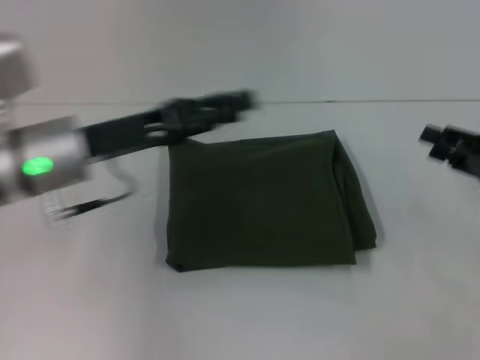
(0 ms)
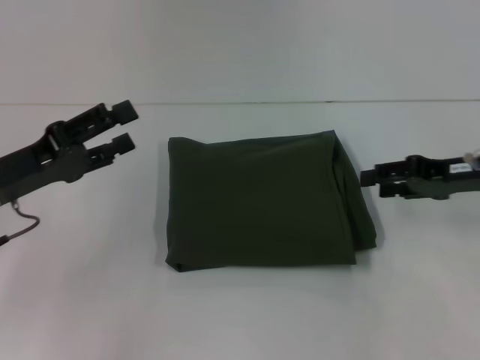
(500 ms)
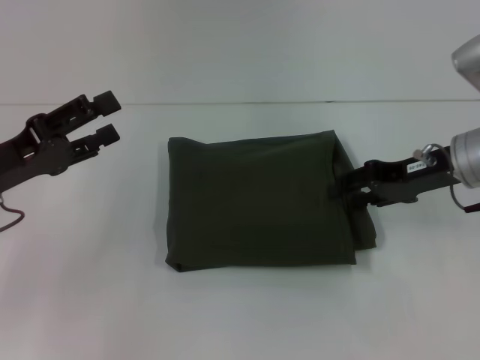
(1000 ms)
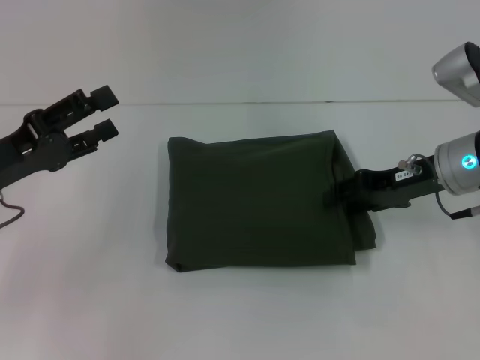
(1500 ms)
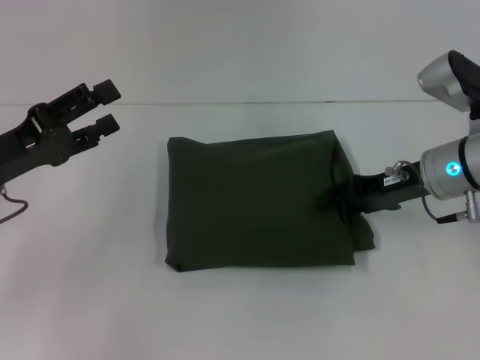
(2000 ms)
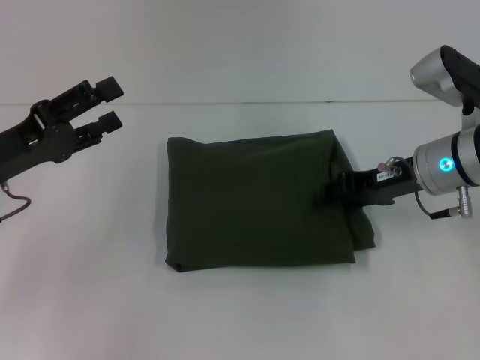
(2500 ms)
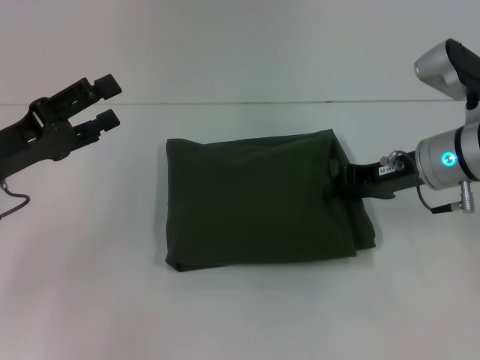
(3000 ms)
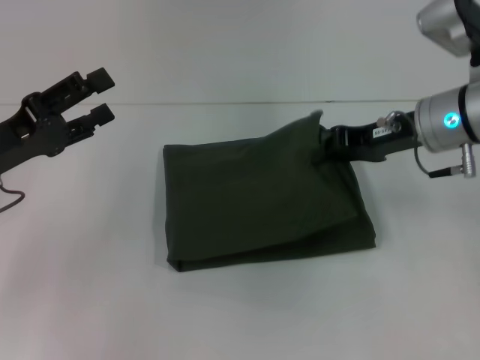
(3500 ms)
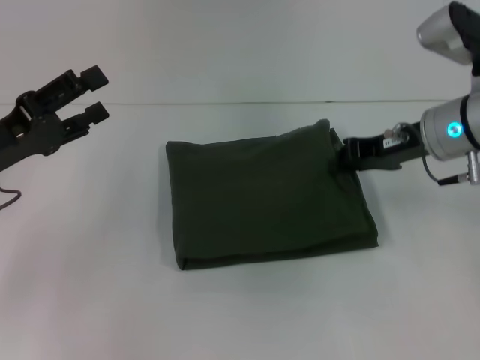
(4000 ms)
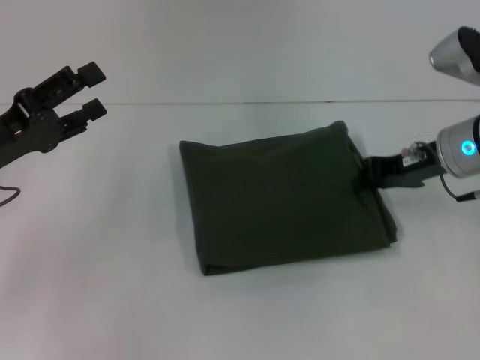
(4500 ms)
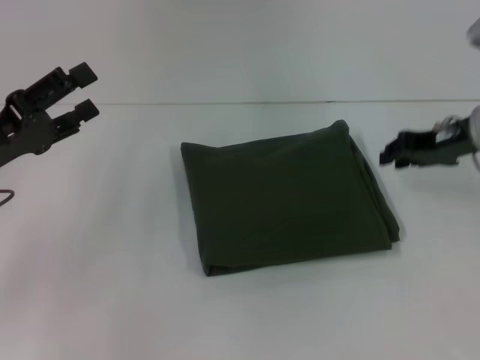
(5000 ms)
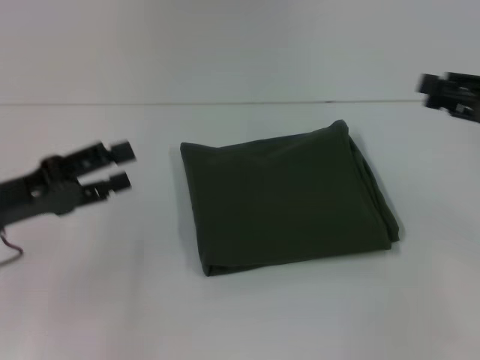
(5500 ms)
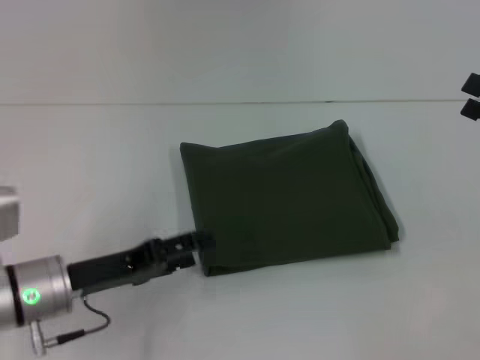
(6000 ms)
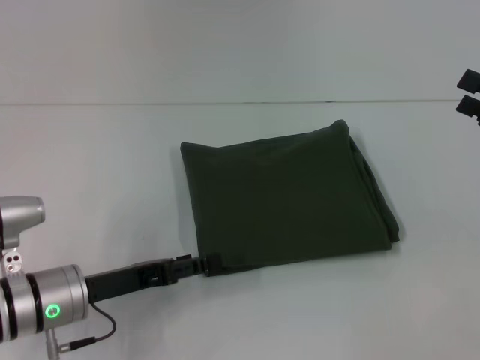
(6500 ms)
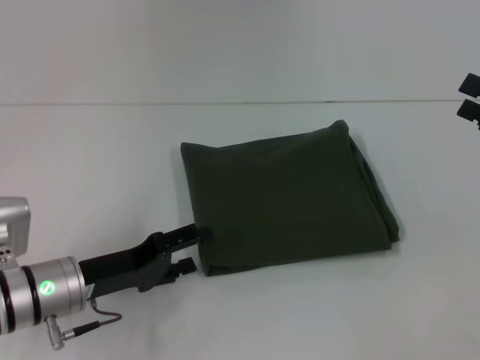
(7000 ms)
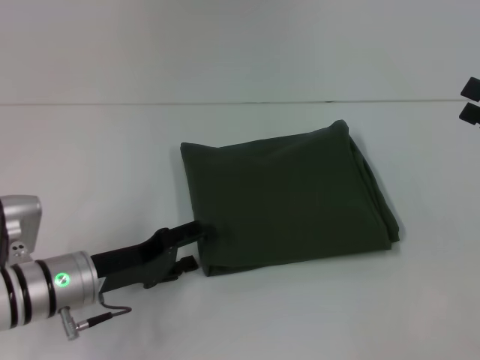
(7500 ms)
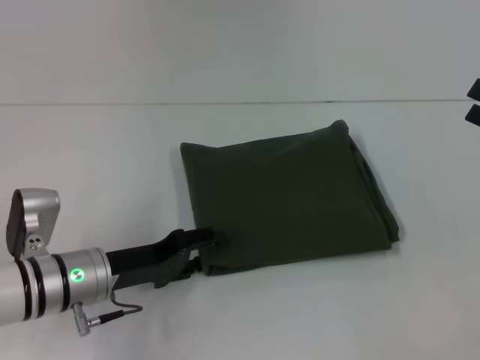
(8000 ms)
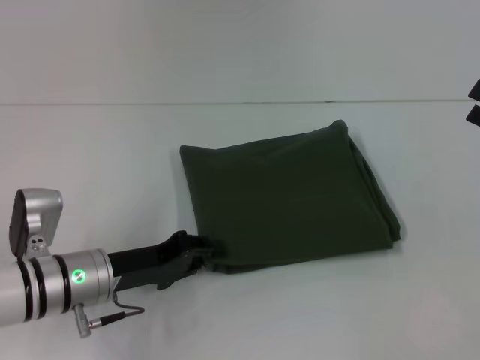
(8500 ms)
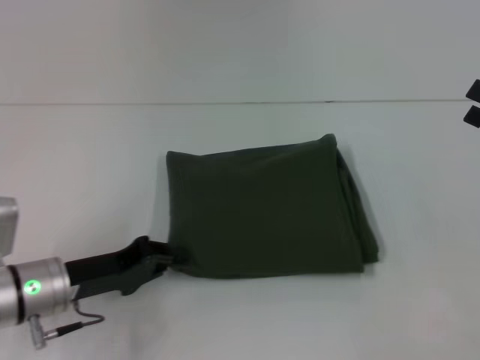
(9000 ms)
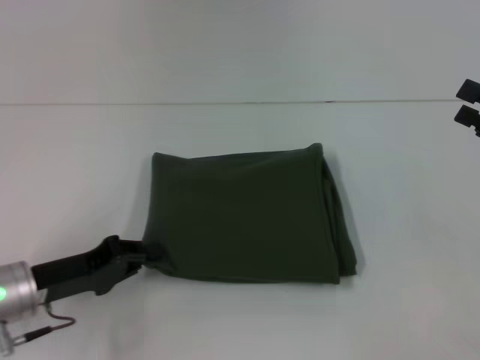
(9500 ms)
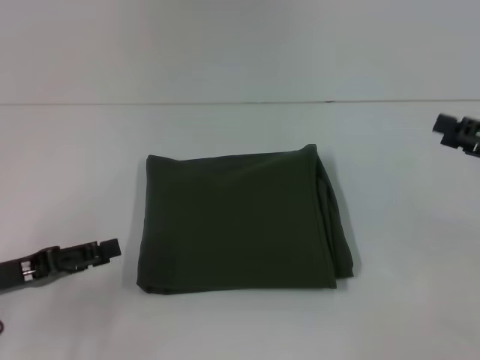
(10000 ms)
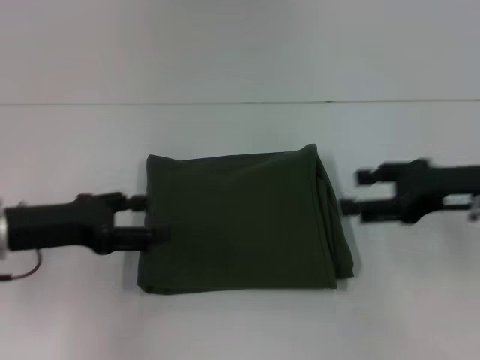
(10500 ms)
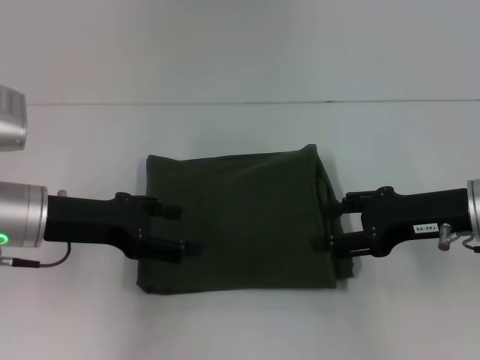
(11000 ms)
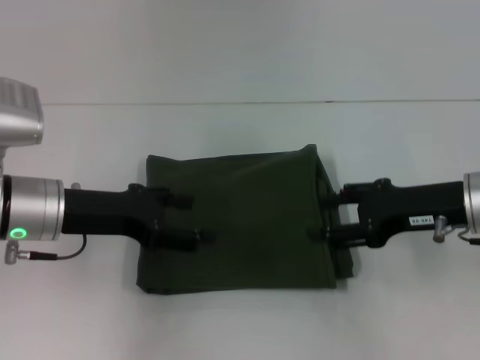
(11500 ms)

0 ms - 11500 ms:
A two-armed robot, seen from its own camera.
0 ms - 2000 ms: The left gripper is displaced to the left by about 10 cm, and opens its fingers; the right gripper goes about 15 cm to the left and forward.
2000 ms - 4000 ms: The right gripper closes.
4000 ms - 6000 ms: The right gripper is displaced to the right and backward by approximately 20 cm, and opens its fingers, while the left gripper is displaced downward and to the right by some 10 cm.
6000 ms - 7500 ms: The grippers stay close to where they were, moving slightly.
7500 ms - 9500 ms: The left gripper travels to the left by some 5 cm, and closes up.
9500 ms - 11500 ms: The left gripper travels upward and forward by some 10 cm, and opens. Meanwhile the right gripper travels to the left by about 10 cm.

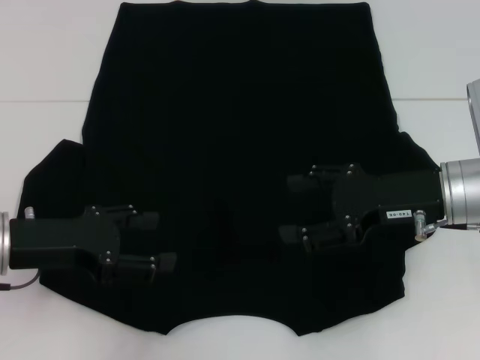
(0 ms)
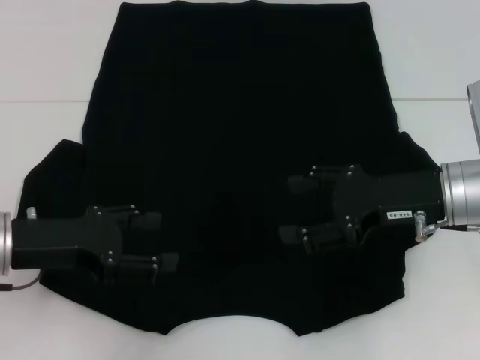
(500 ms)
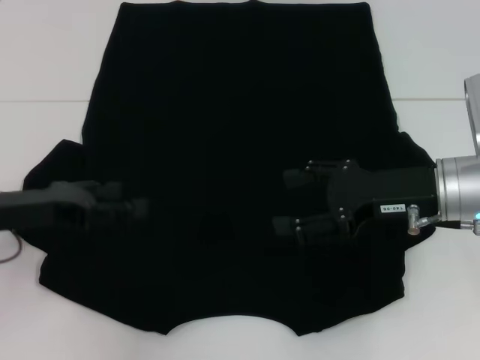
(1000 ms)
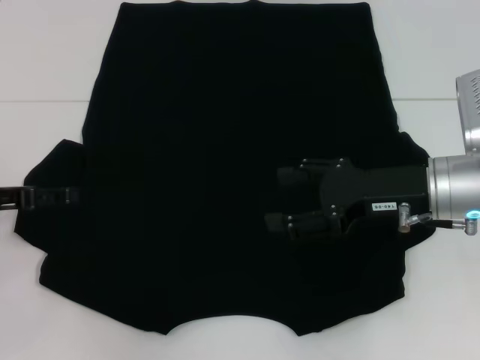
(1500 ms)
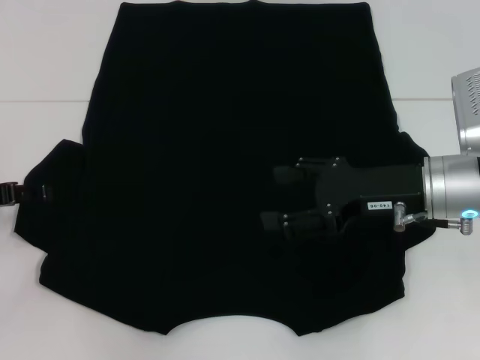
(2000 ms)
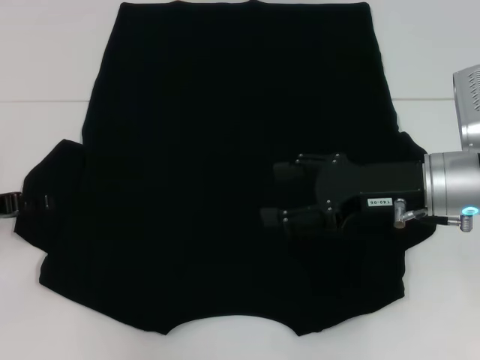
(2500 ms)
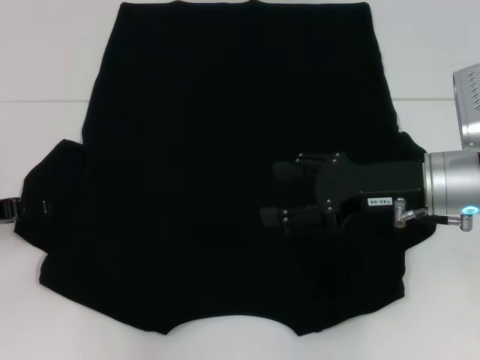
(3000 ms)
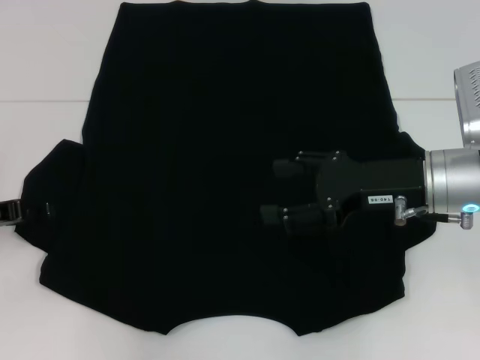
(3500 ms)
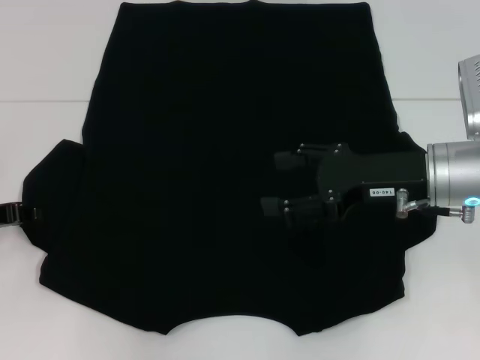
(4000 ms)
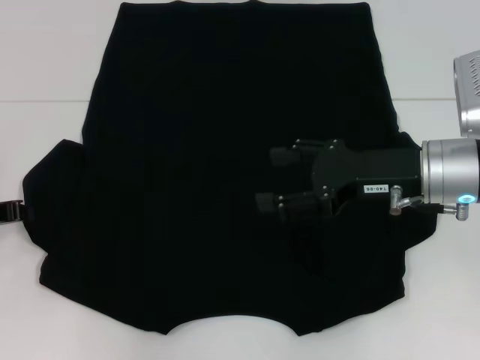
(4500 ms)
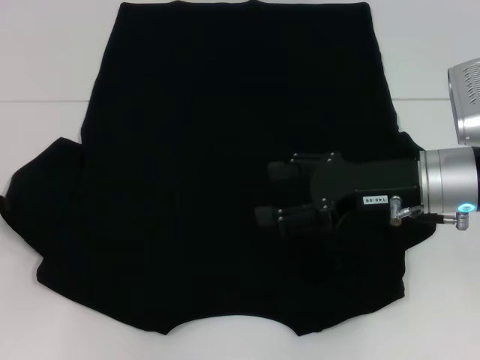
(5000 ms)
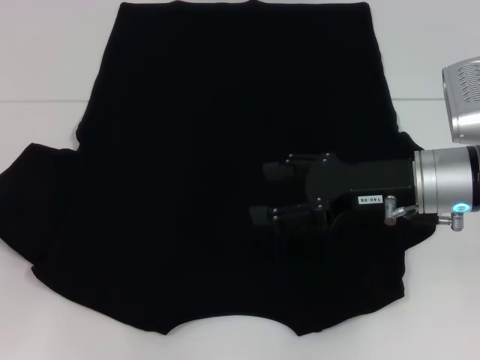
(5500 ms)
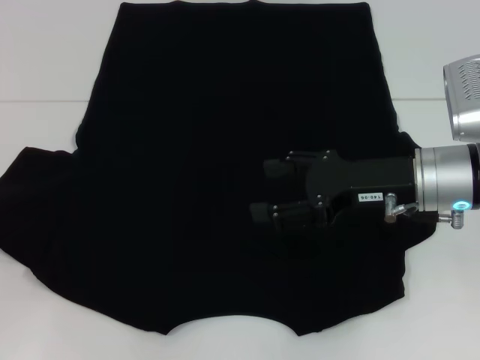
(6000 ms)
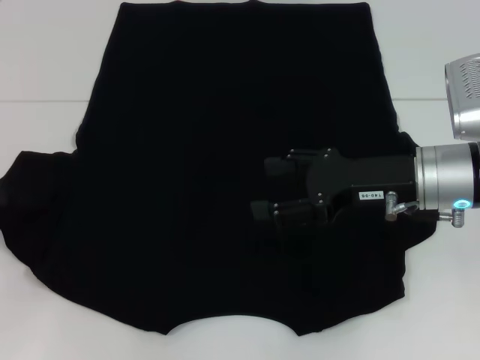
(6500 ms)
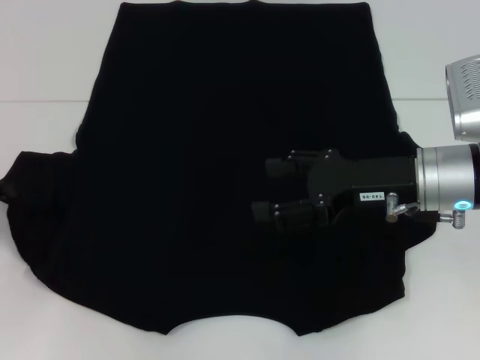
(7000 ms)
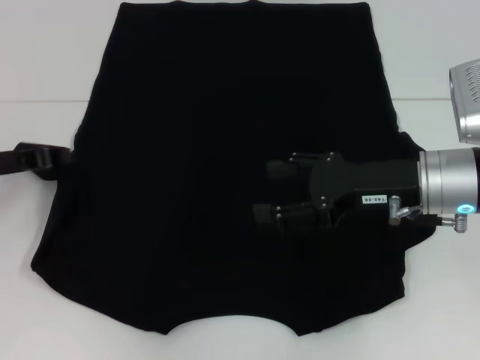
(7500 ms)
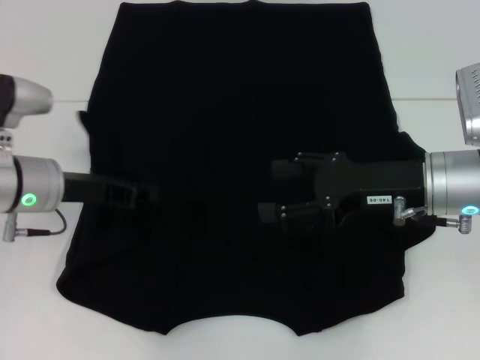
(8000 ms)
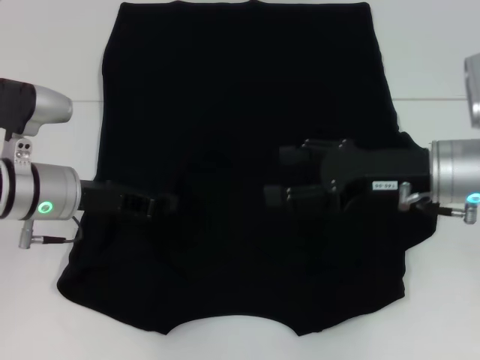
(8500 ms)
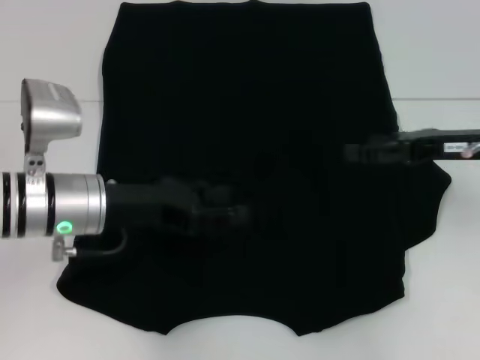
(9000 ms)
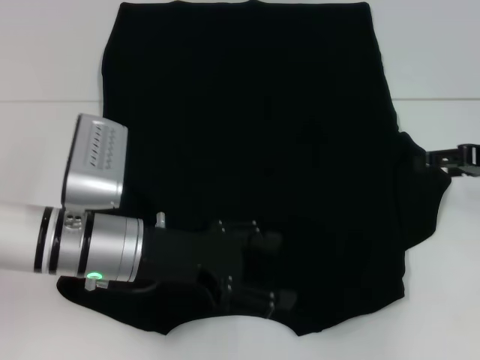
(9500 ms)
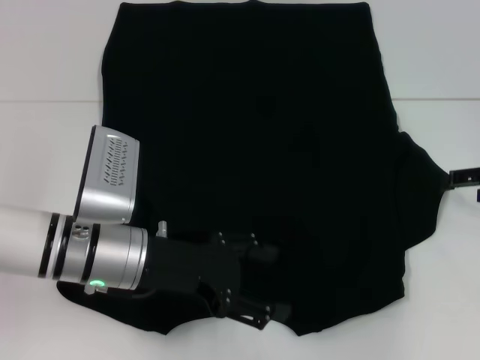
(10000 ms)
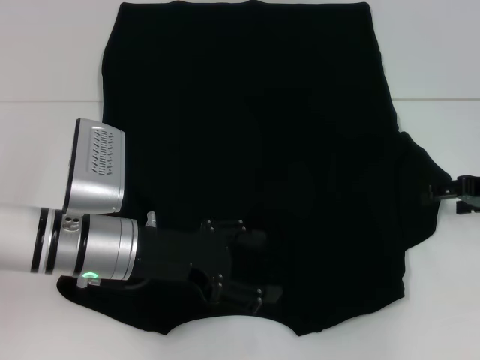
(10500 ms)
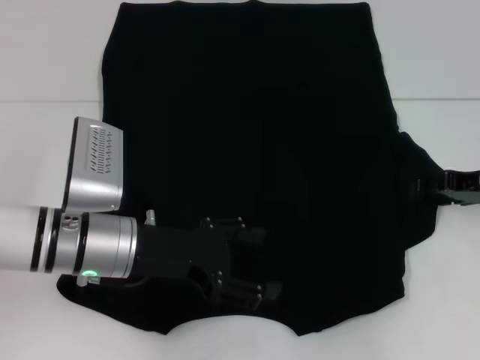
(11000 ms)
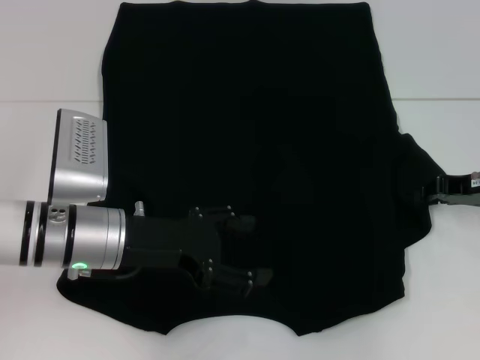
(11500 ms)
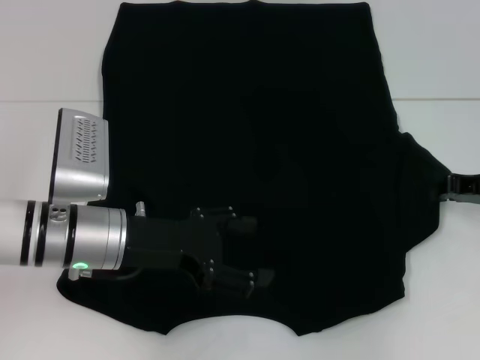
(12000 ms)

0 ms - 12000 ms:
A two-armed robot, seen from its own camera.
Step, 0 ms - 8500 ms: Fold the bottom left sleeve with your left hand.
0 ms - 2000 ms: The left gripper is displaced to the left by about 10 cm.
2000 ms - 4000 ms: There are only small adjustments of the grippers.
4000 ms - 6000 ms: The left gripper moves approximately 5 cm, and closes its fingers.
6000 ms - 8000 ms: The left gripper goes some 15 cm to the right and forward.
8000 ms - 10000 ms: The left gripper travels to the right and backward by approximately 10 cm, and opens. Meanwhile the right gripper shifts some 15 cm to the right.
10000 ms - 12000 ms: The right gripper closes.

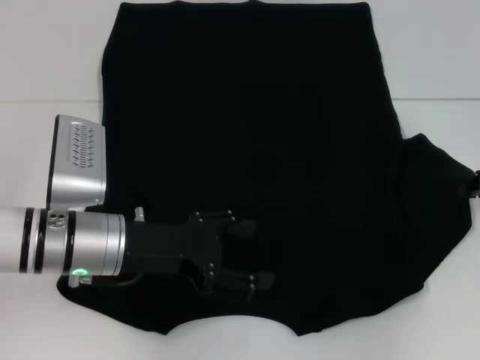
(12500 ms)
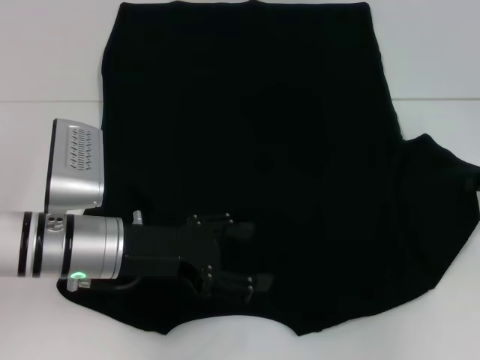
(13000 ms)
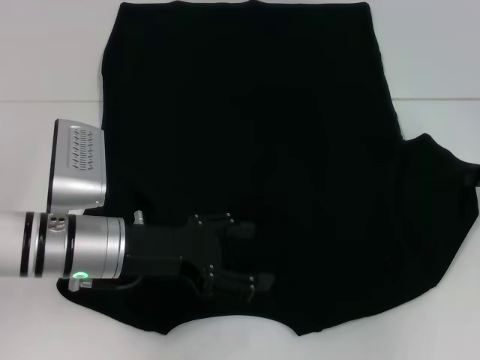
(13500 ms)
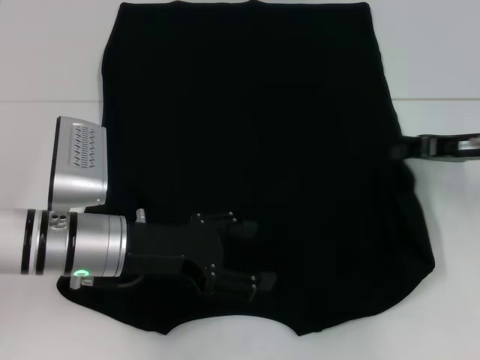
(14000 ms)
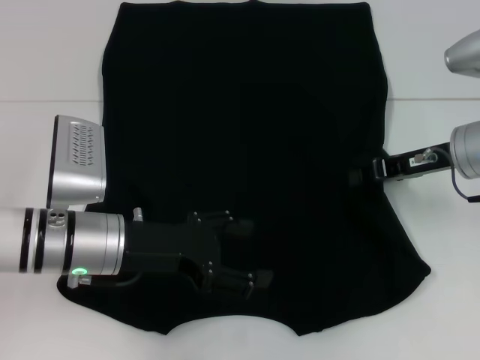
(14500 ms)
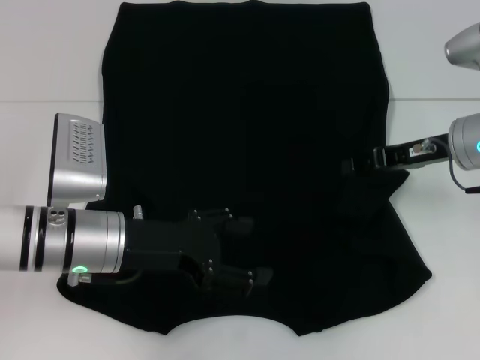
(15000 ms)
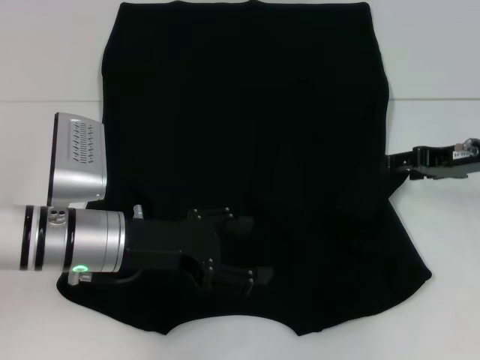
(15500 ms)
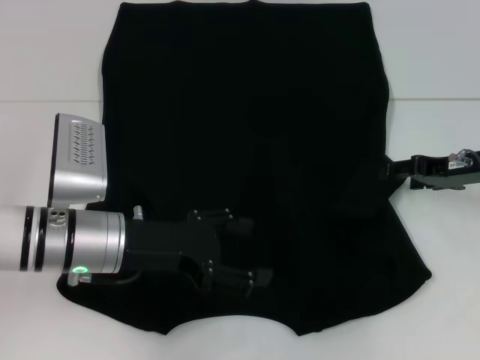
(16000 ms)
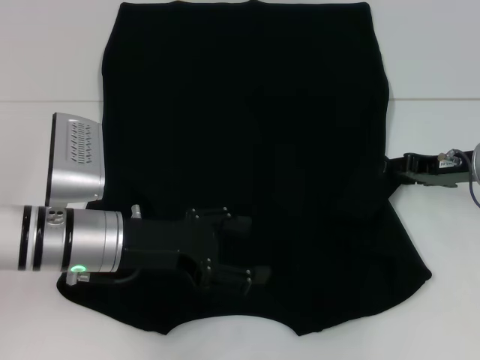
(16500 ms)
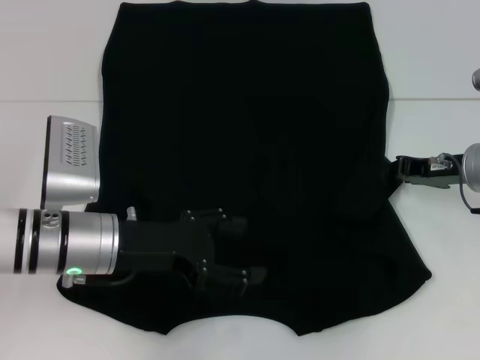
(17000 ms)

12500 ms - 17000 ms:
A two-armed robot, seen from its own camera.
12500 ms - 14500 ms: The right gripper travels to the left by about 10 cm.
14500 ms - 17000 ms: The right gripper opens, then closes again.
